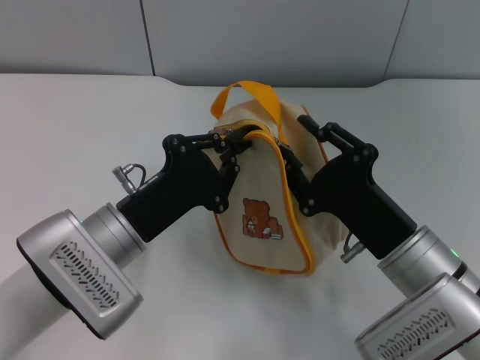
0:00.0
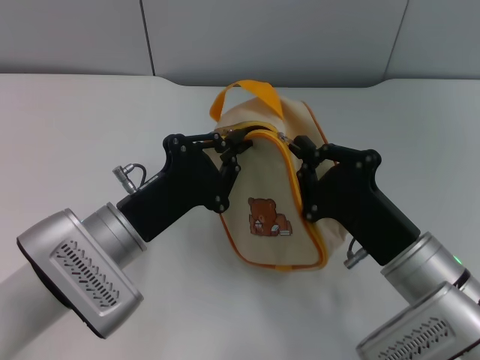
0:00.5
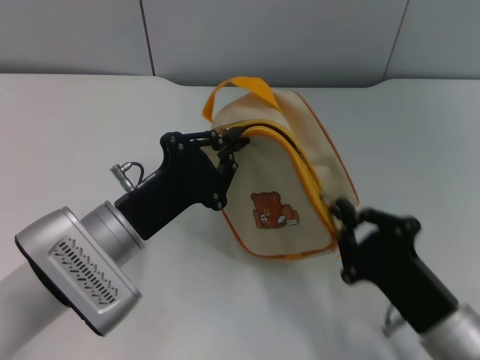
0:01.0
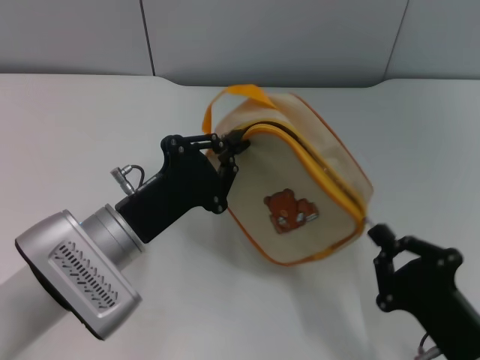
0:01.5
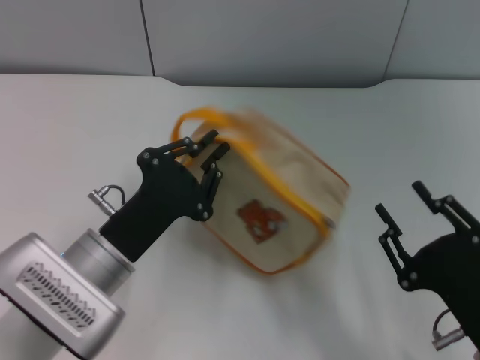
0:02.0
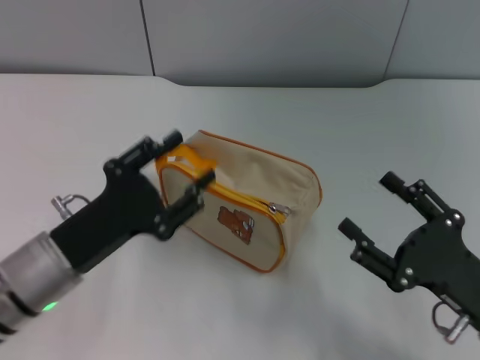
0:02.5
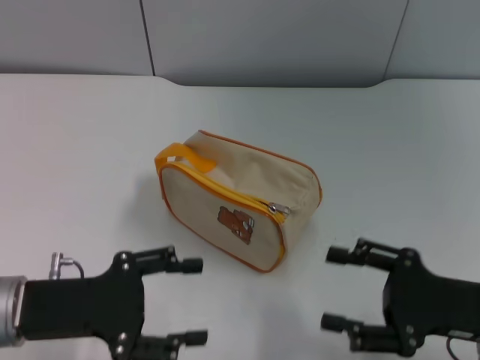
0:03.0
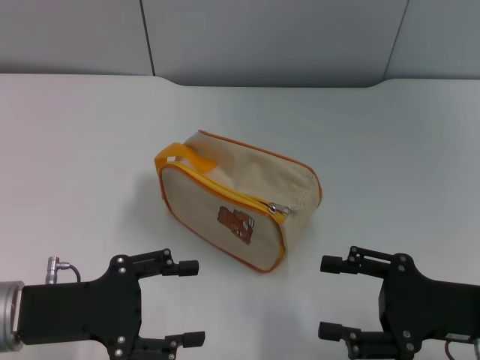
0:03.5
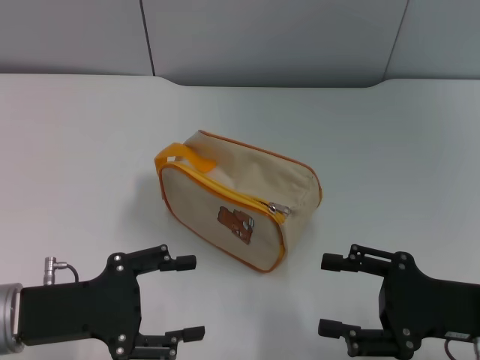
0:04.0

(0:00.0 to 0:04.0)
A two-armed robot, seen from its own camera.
0:00.0 - 0:02.0: The right gripper heads backward and to the right, covering approximately 10 cm, and closes up.
0:02.0 - 0:04.0: The right gripper heads forward, covering about 5 cm, and opens up; the left gripper shifts some 10 cm to the left, and opens.

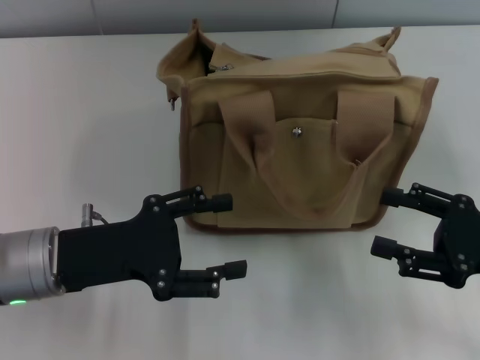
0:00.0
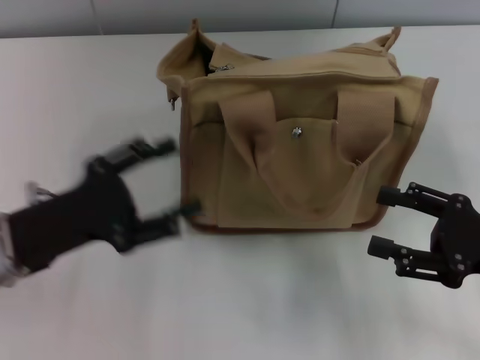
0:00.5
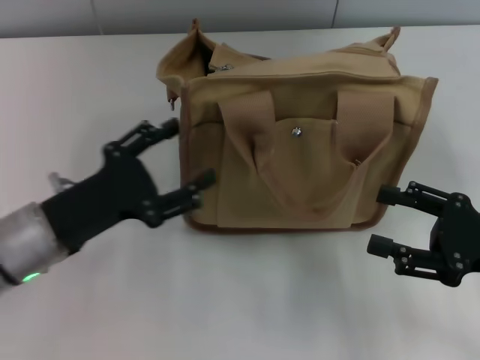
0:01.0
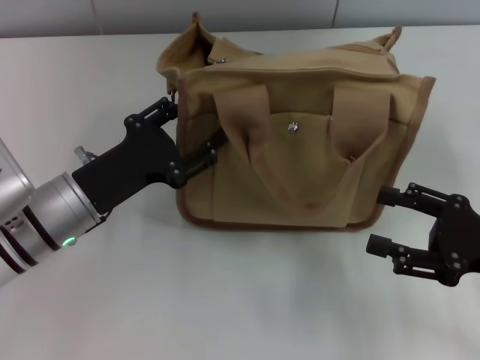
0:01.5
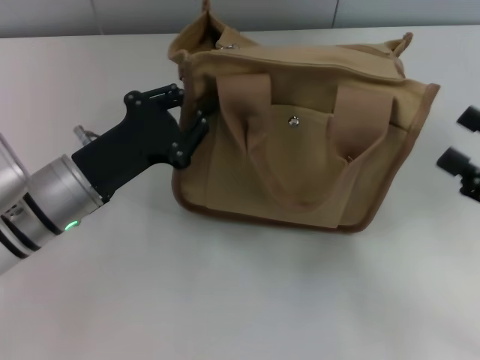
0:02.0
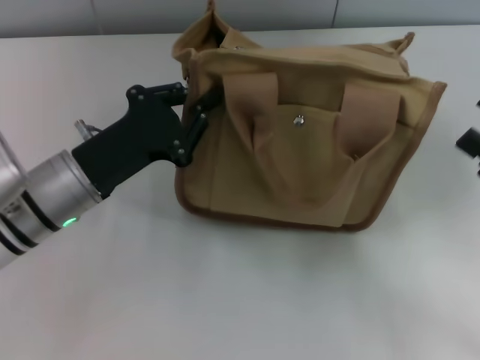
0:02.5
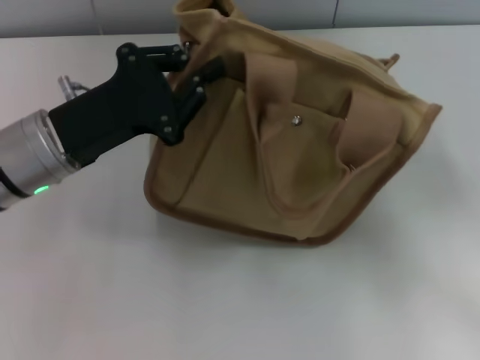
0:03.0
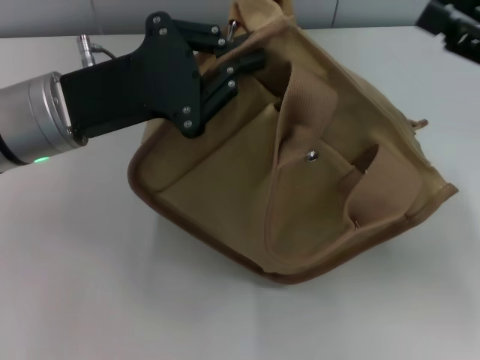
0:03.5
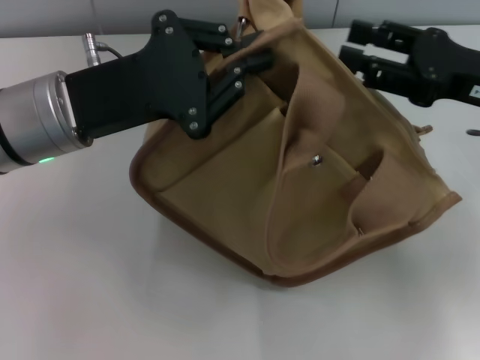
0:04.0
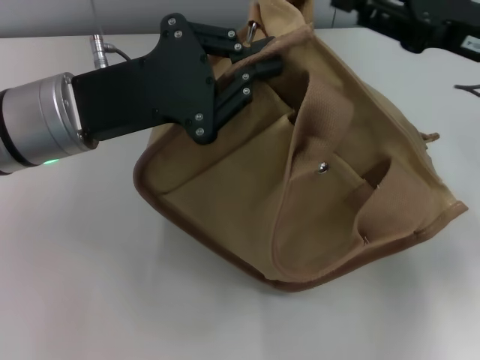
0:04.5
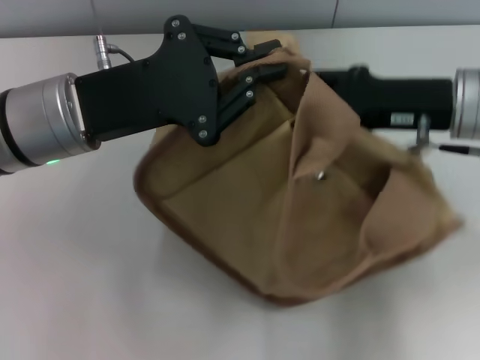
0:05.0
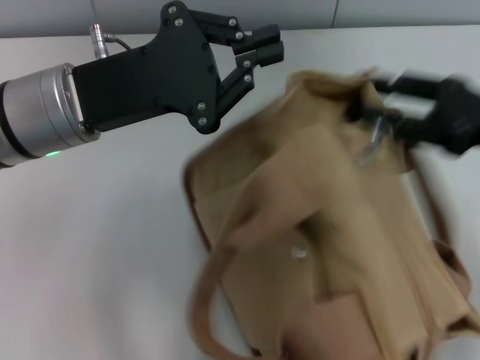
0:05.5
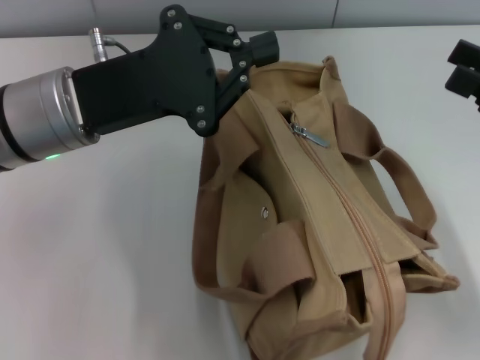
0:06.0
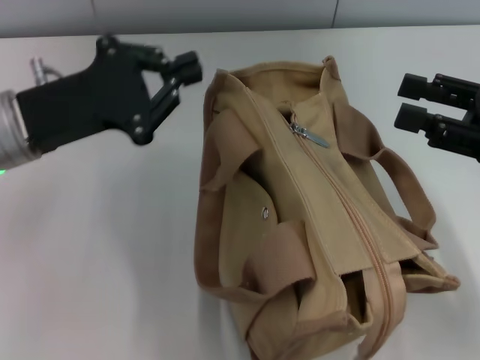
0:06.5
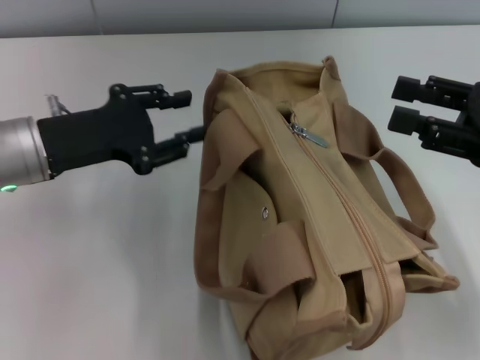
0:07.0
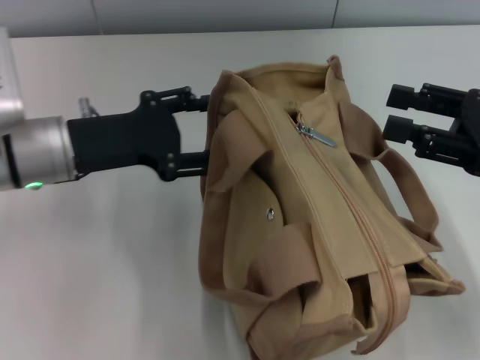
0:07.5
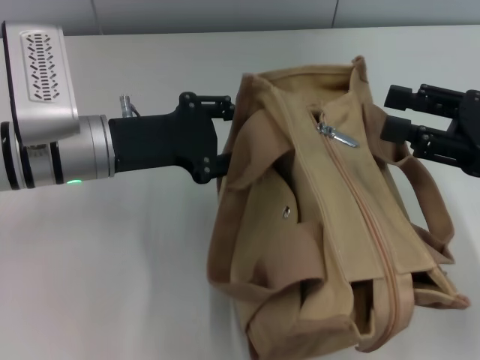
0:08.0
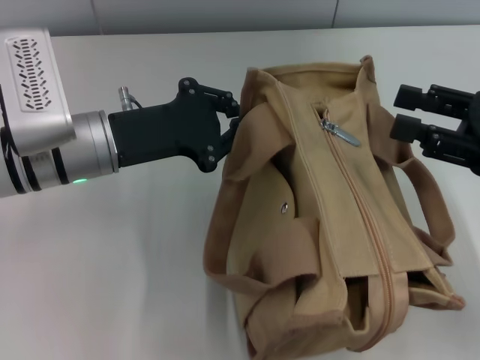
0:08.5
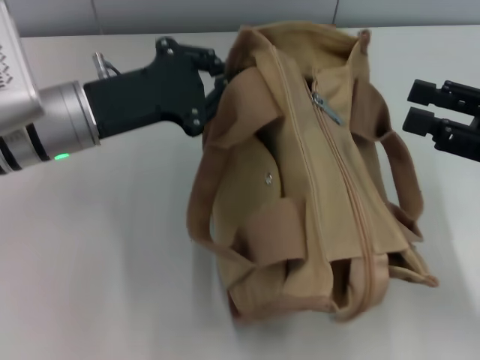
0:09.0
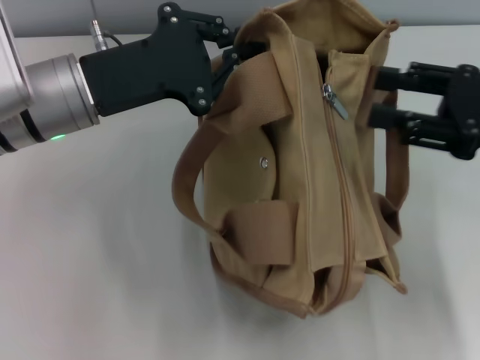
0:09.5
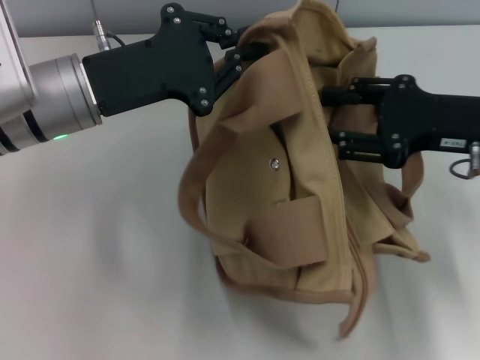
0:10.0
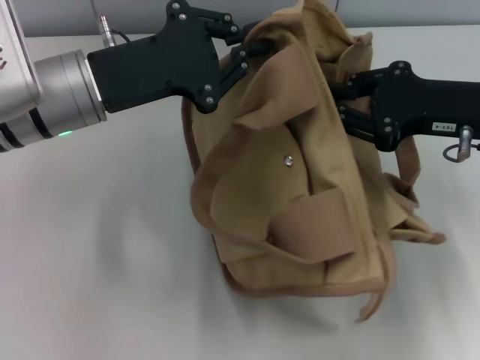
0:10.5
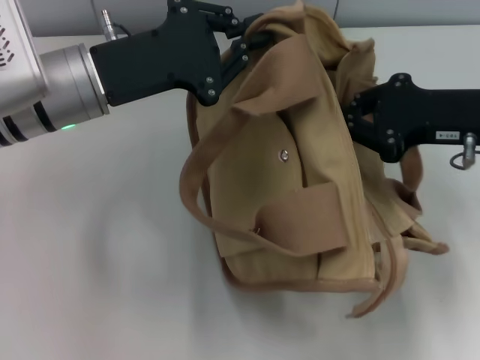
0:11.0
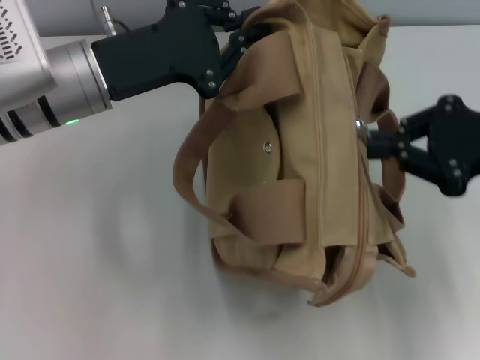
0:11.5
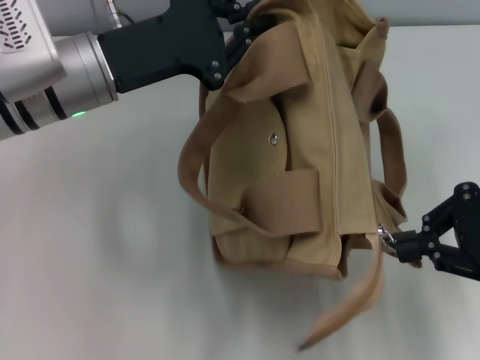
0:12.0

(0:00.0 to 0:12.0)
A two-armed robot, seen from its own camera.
0:00.0 - 0:02.0: The left gripper ends up some 5 cm from where it was, and closes up.
0:02.0 - 0:04.0: The left gripper is displaced upward by some 10 cm. The right gripper is displaced forward, upward and to the left by roughly 15 cm.
0:04.0 - 0:06.0: The right gripper is displaced to the right and backward by about 10 cm.
0:06.0 - 0:08.0: The left gripper is displaced downward by about 5 cm, and opens up.
0:08.0 - 0:10.0: The left gripper closes; the right gripper changes place by some 5 cm.
0:10.0 - 0:12.0: The right gripper heads backward, covering some 5 cm, and closes its fingers.

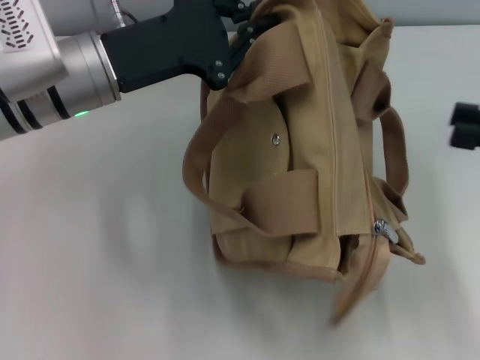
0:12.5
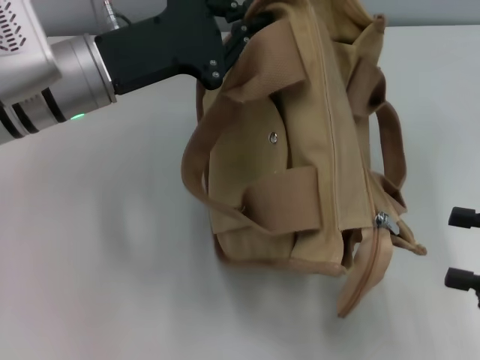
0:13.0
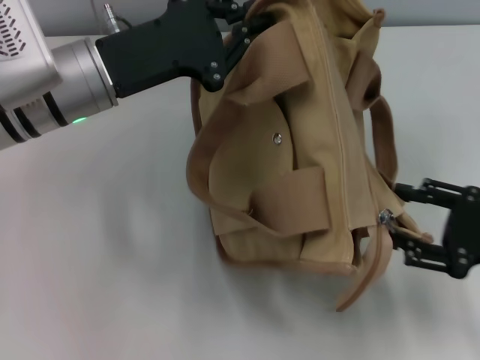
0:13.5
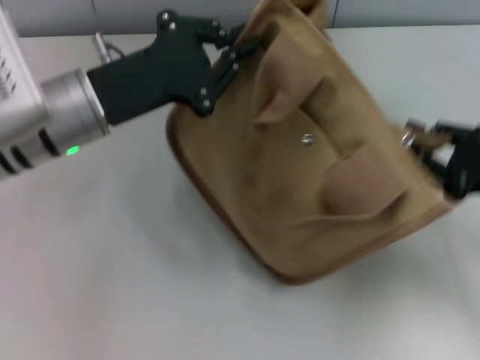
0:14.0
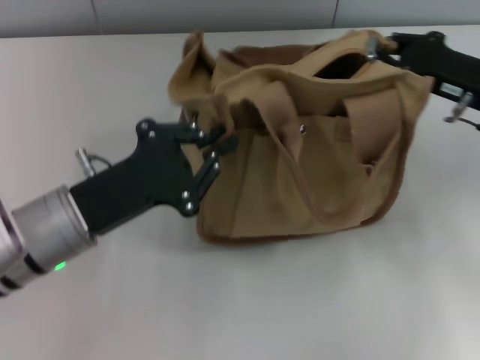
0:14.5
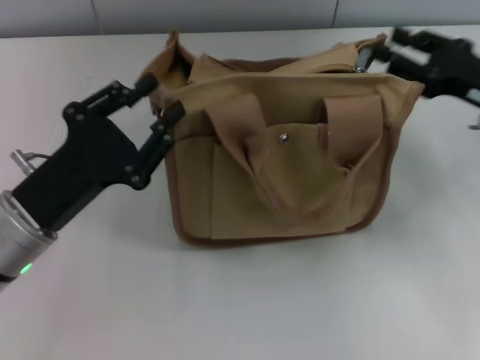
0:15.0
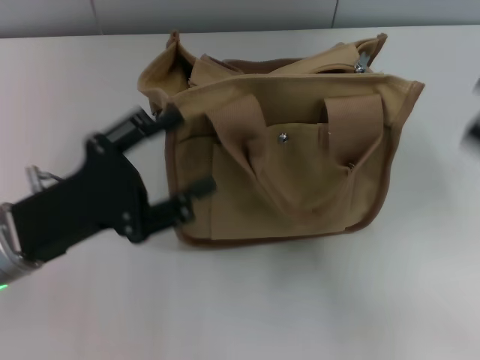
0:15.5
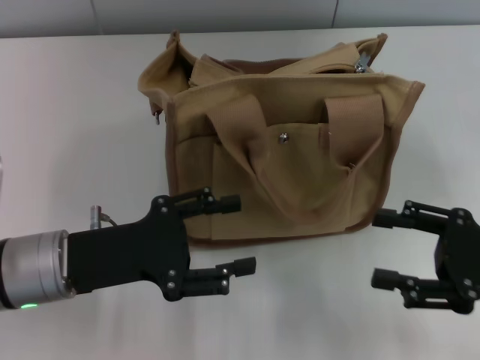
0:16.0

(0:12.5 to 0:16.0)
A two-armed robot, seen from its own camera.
Step, 0:12.5 - 0:15.0: Grab the bag with your left hand.
0:12.5 - 0:14.5: The left gripper is displaced backward and downward by some 15 cm; the right gripper travels forward, to the left and downward by about 15 cm, and opens, then closes again.
0:14.5 - 0:16.0: The right gripper heads backward, covering roughly 15 cm, and opens its fingers, while the left gripper opens up.
